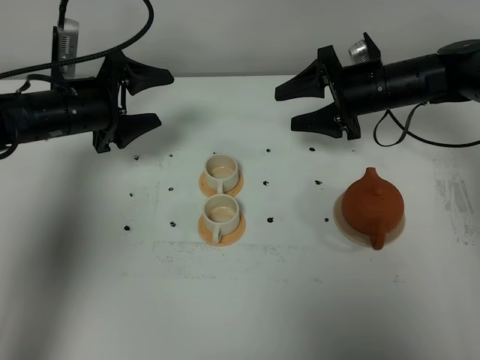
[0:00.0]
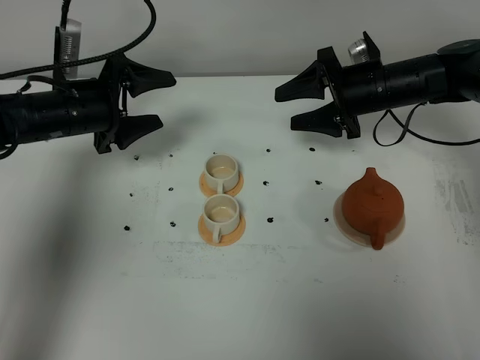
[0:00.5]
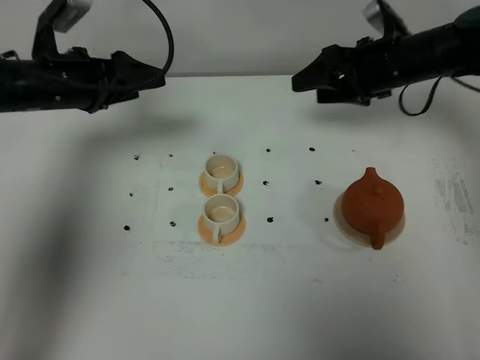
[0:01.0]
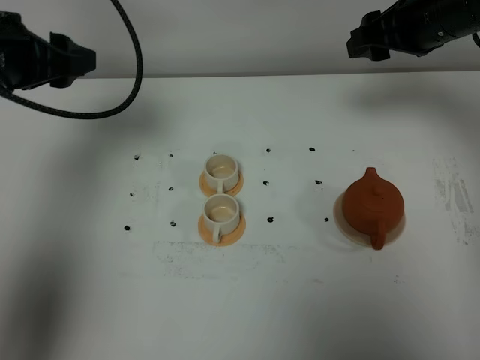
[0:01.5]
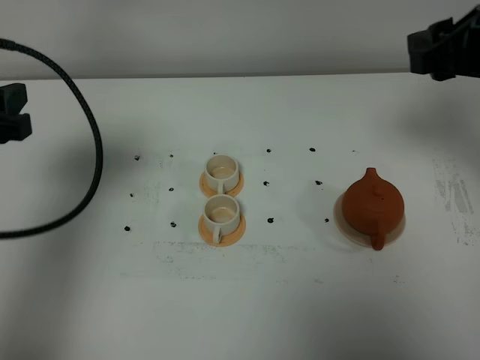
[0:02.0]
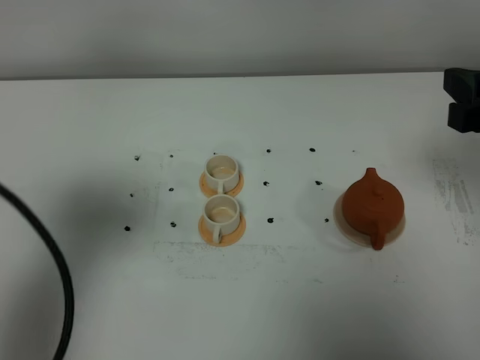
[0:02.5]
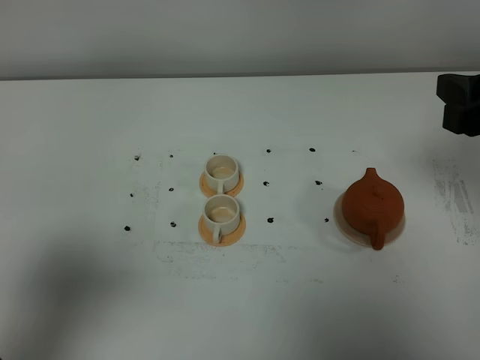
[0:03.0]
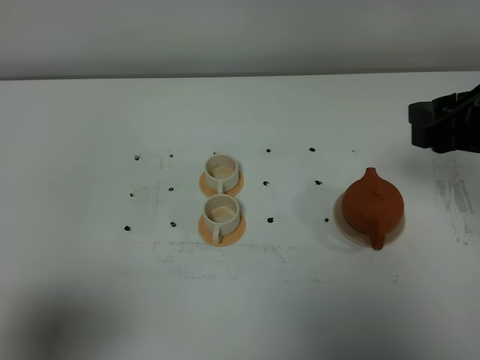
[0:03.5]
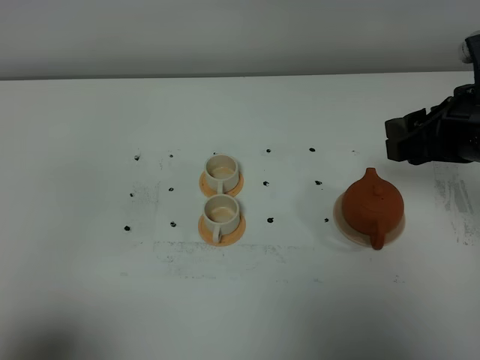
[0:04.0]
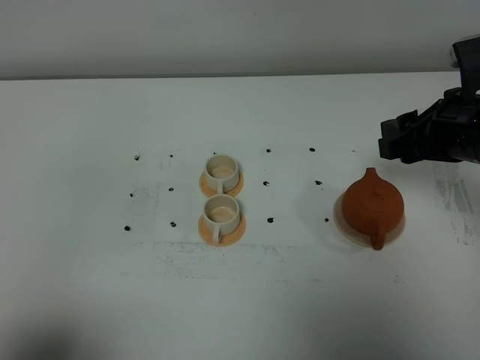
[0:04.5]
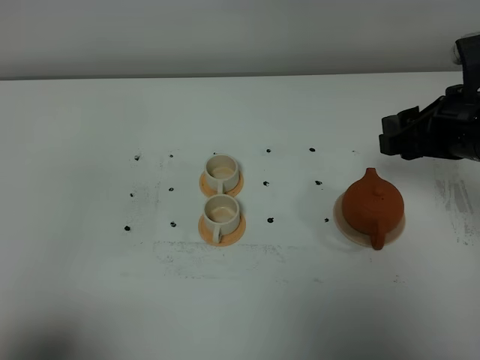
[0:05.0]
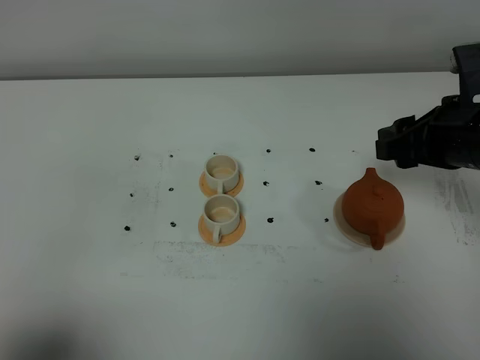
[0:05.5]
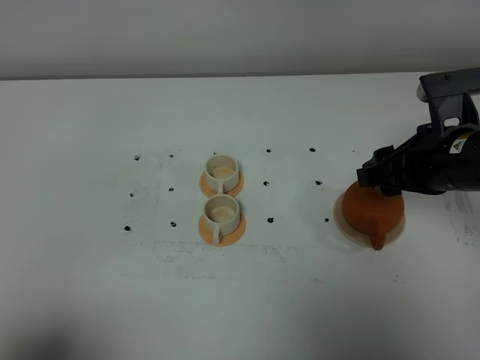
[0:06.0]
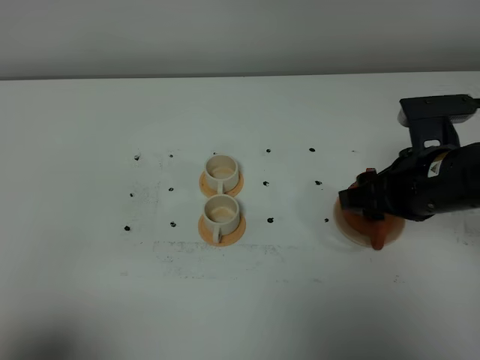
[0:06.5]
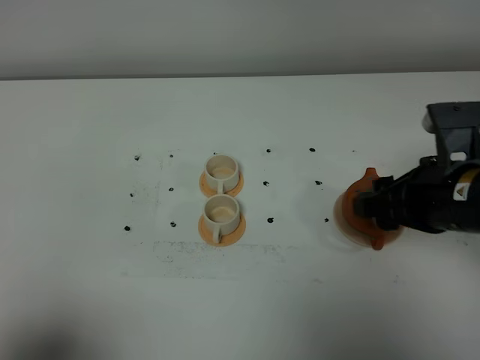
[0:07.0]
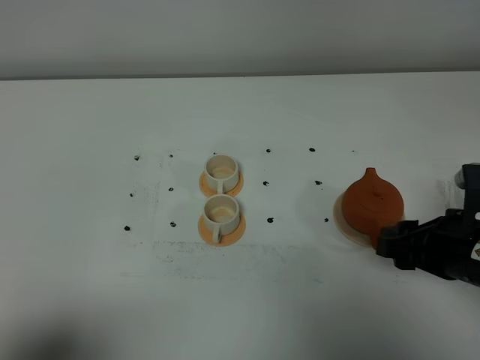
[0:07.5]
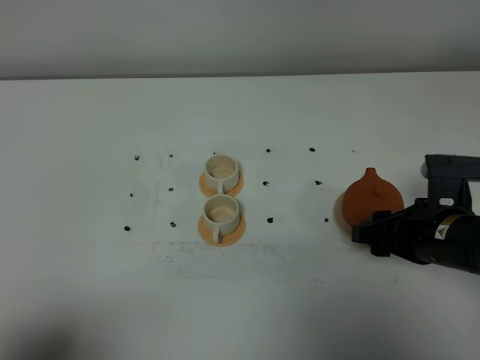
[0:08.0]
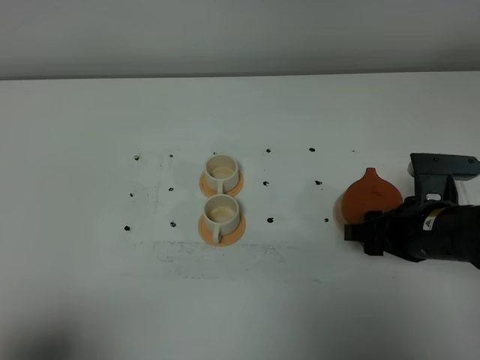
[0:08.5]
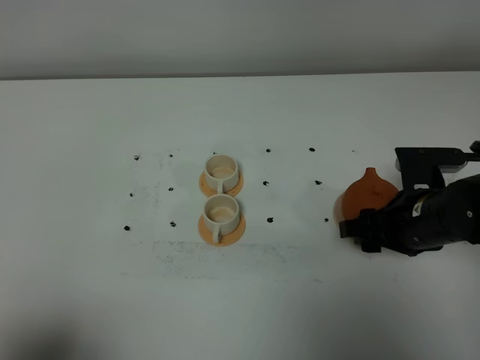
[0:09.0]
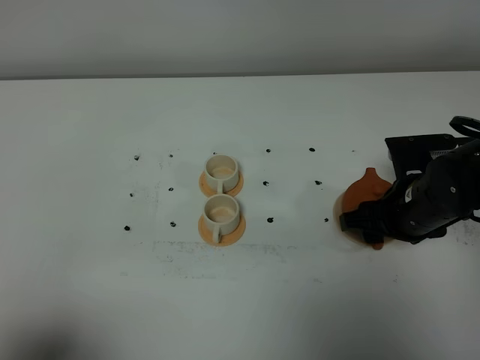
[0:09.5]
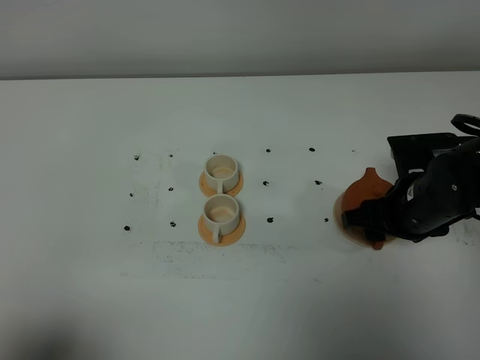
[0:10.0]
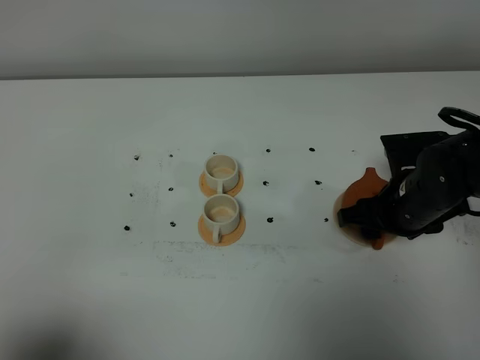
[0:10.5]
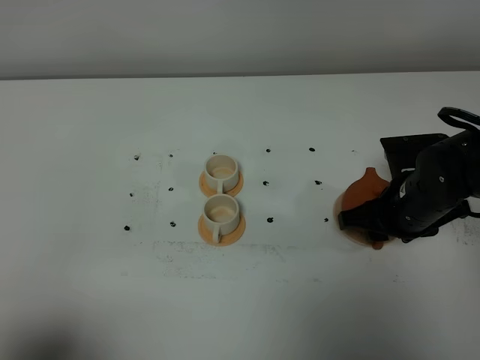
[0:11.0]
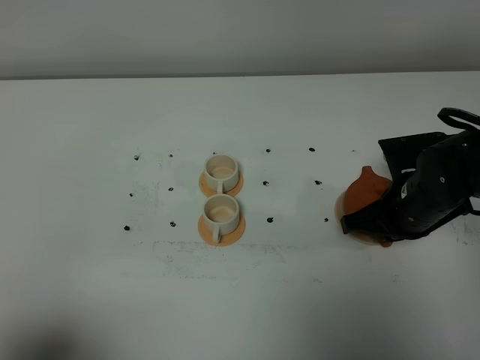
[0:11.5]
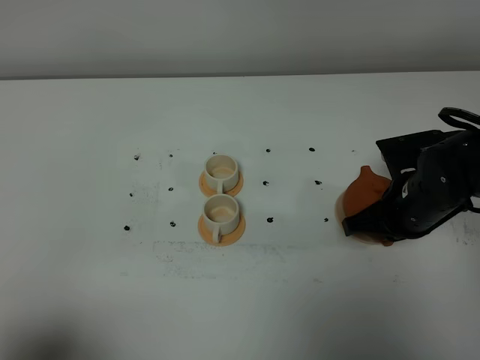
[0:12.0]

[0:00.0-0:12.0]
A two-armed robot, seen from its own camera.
Task of the whole recording: grasp the brown teapot and pour the tea into the two white teacups one by one, put the brown teapot back in its original place.
0:00.0 to 0:02.0: The right gripper moves upward and backward, roughly 25 cm; the left gripper shifts approximately 20 cm backward and upward.
0:02.0 to 0:04.0: The right gripper is displaced downward by approximately 5 cm; the left gripper moves backward, about 25 cm, and closes up.
0:04.0 to 0:06.0: The grippers make only small movements.
0:06.0 to 0:08.0: The right gripper is displaced downward by roughly 10 cm.
0:08.0 to 0:10.0: The right gripper is displaced forward by approximately 5 cm.
0:10.0 to 0:12.0: The right gripper closes up.

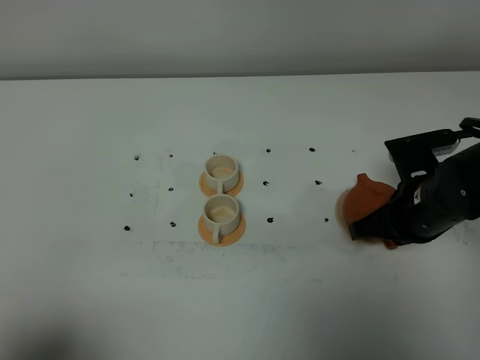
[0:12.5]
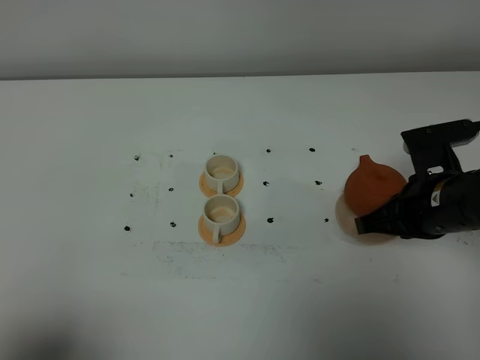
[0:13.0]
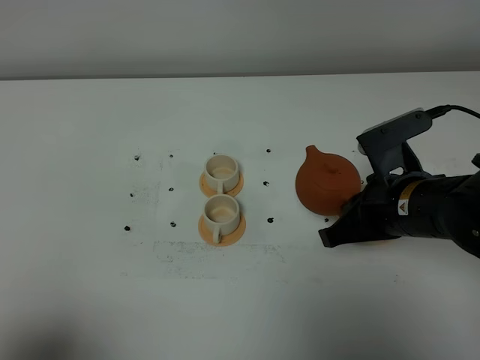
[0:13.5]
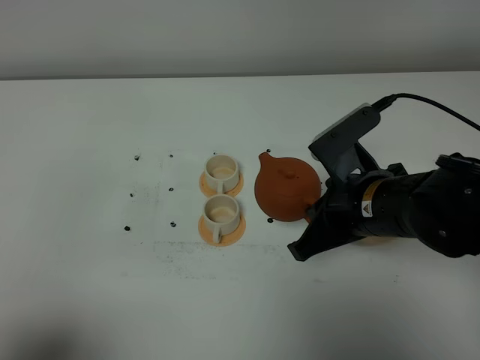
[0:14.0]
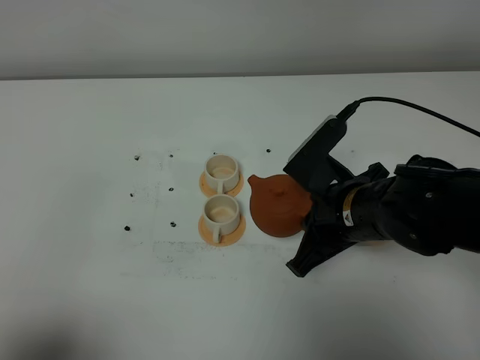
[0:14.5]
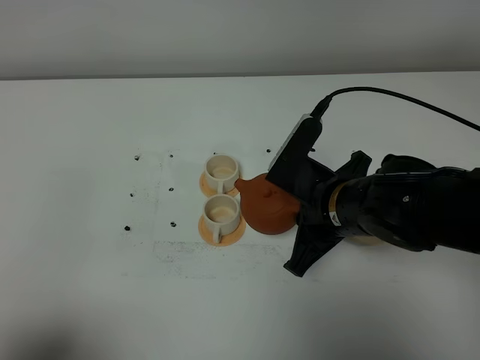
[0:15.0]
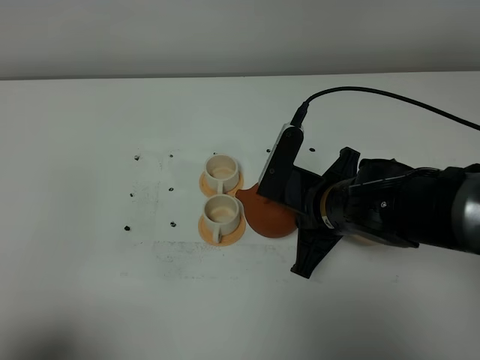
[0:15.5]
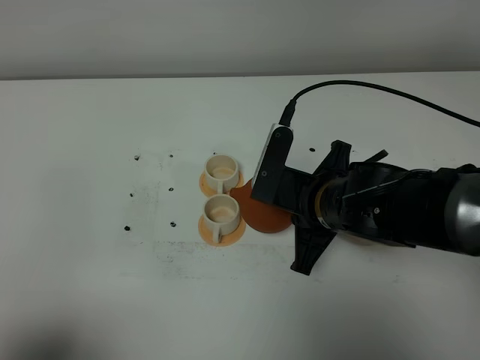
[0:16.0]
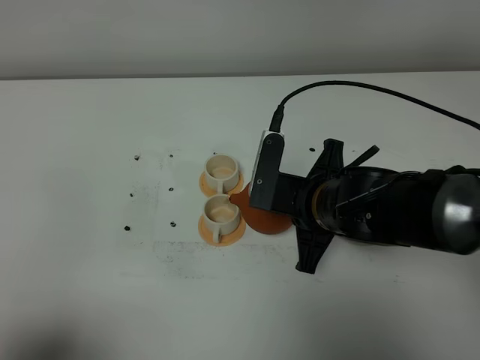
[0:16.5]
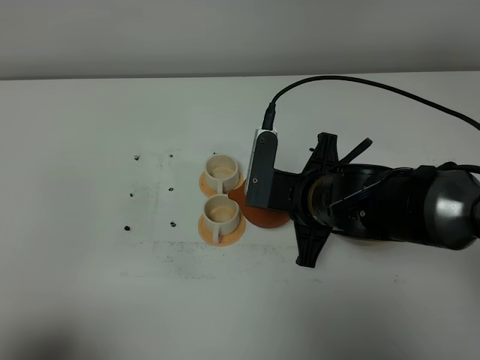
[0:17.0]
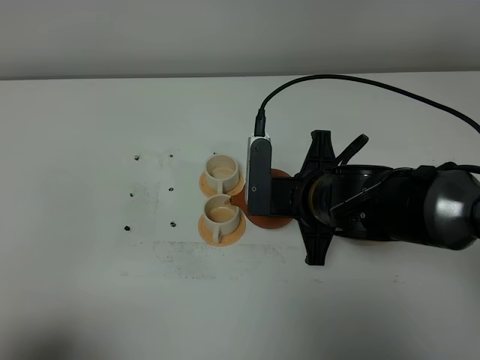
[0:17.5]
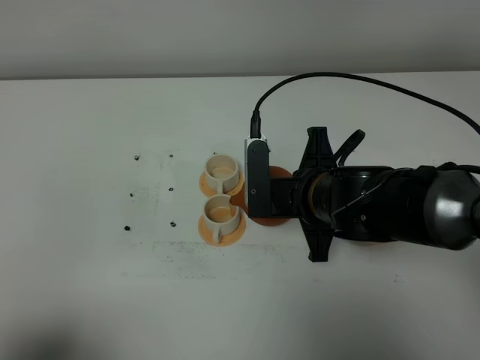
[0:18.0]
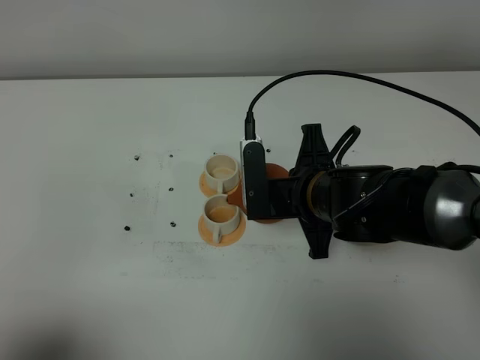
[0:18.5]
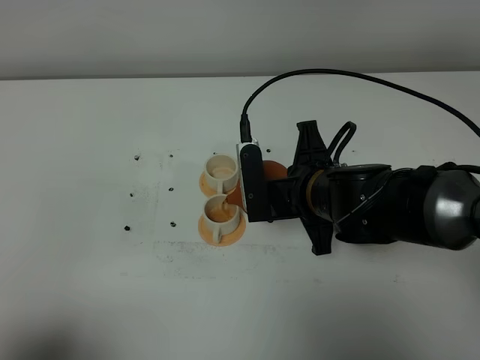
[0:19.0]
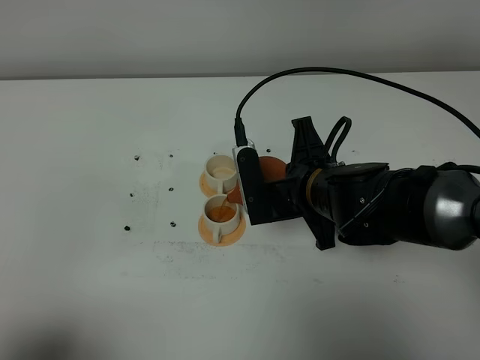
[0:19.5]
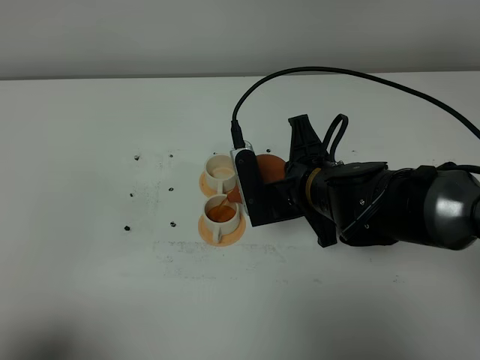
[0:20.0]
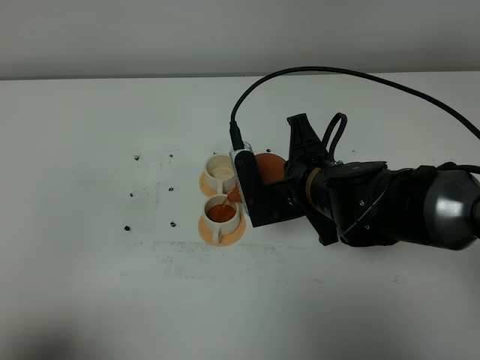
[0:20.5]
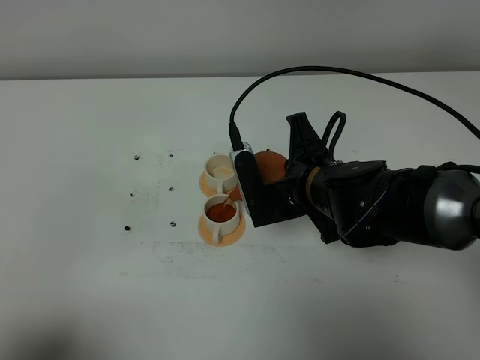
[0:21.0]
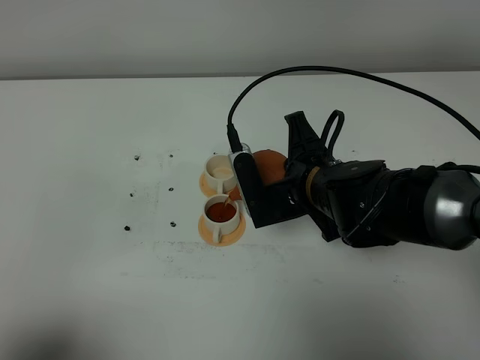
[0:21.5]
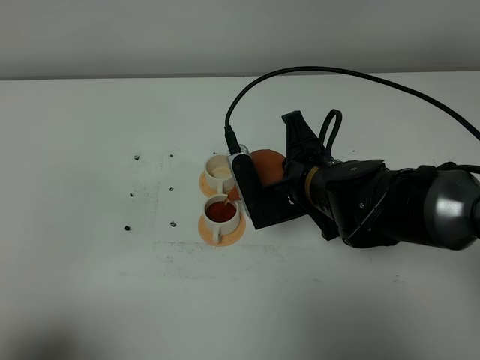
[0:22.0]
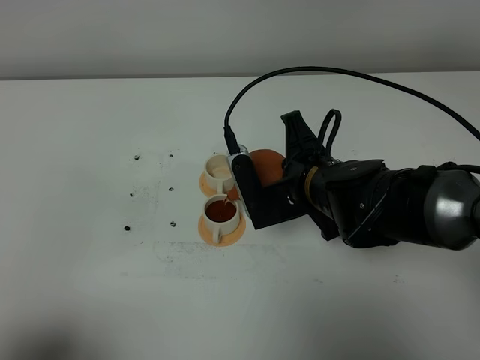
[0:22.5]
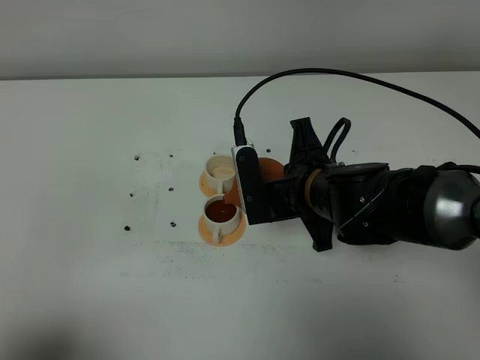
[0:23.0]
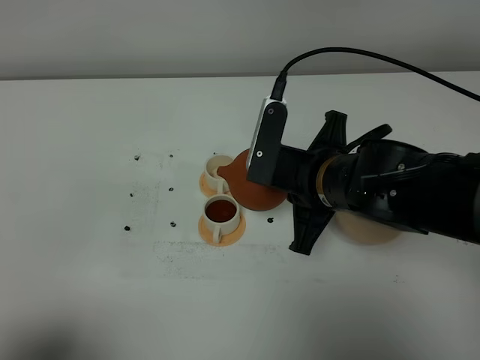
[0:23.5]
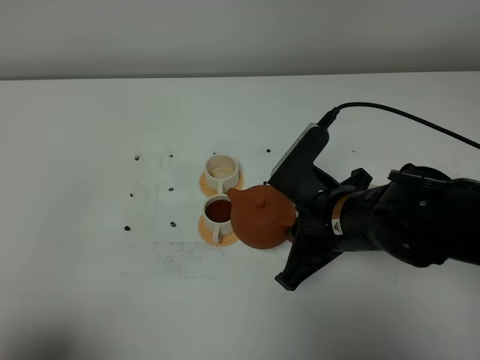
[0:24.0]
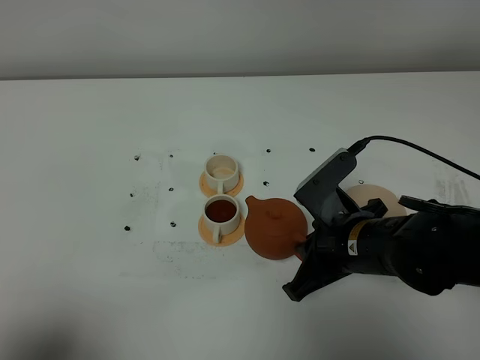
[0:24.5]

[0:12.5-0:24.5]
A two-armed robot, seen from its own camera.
Task of the whole recording: grasp the brown teapot and pour the tea into the two white teacups one by one, put the brown teapot back in its original place.
0:12.5 to 0:14.5: The right gripper is displaced to the left by approximately 10 cm.
0:16.5 to 0:18.5: The grippers move only a little.
0:18.5 to 0:22.5: The grippers stay close to where they were, moving slightly.
0:22.5 to 0:24.5: The right gripper goes approximately 5 cm backward.

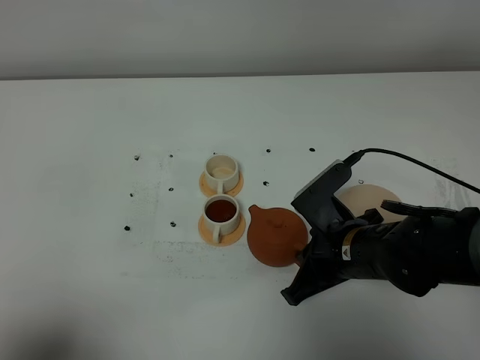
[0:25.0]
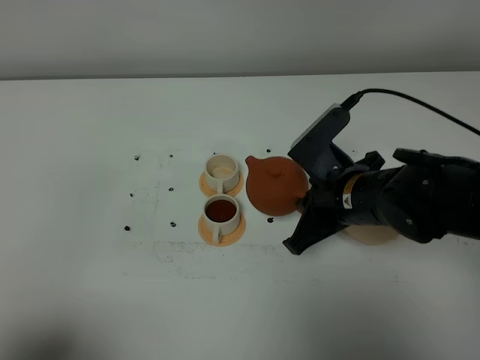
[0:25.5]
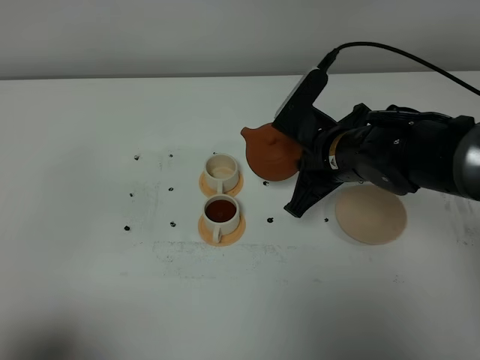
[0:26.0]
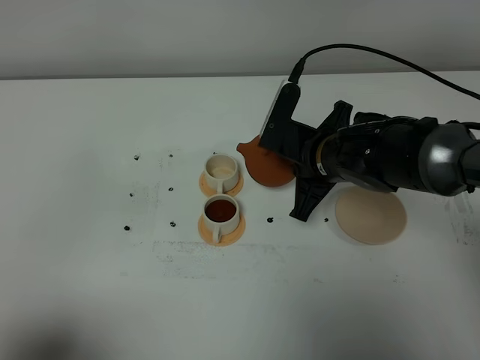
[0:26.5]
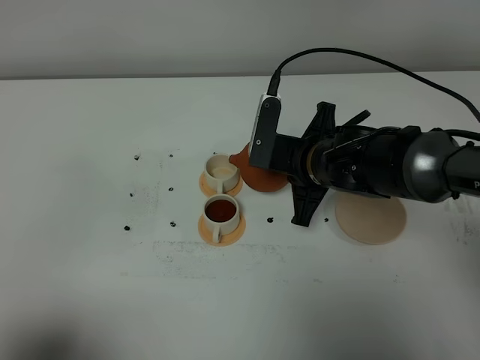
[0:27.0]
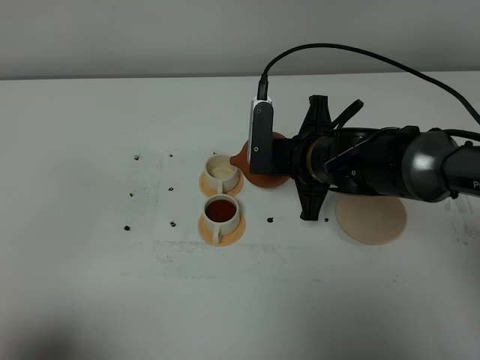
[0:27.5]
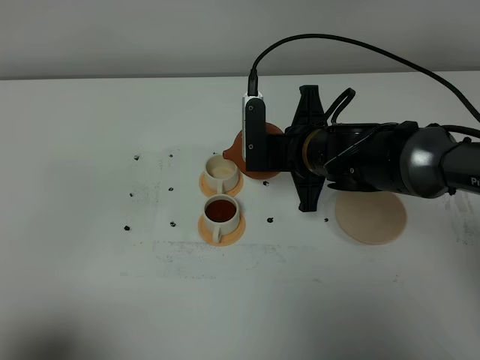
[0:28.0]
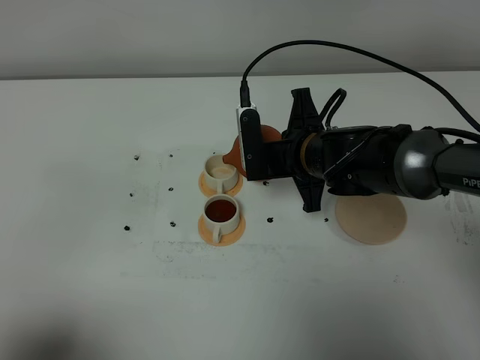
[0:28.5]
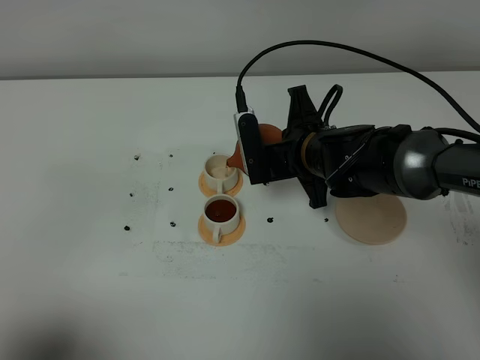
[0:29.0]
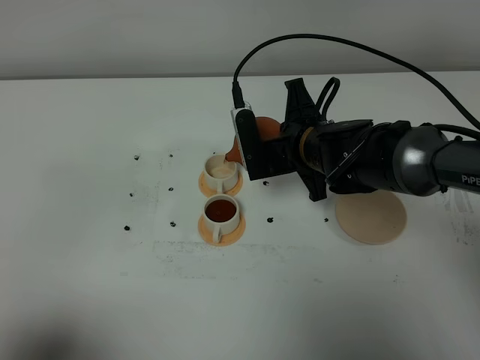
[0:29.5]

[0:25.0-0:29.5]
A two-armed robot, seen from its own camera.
Task of the whole recording: grasp the brown teapot and pour the tea into the two white teacups one by one, put the brown teapot back in its original place.
0:25.0 to 0:27.0: The right gripper goes some 10 cm forward.
